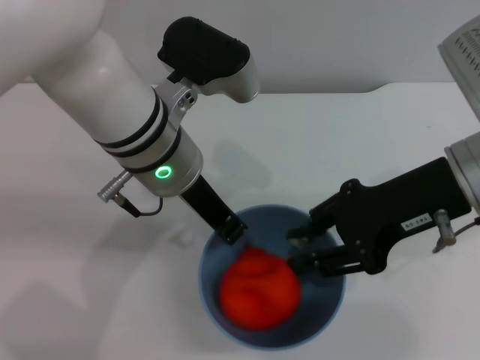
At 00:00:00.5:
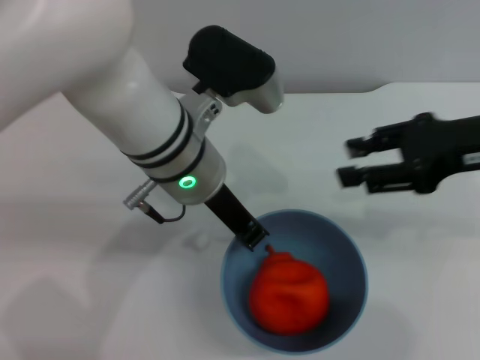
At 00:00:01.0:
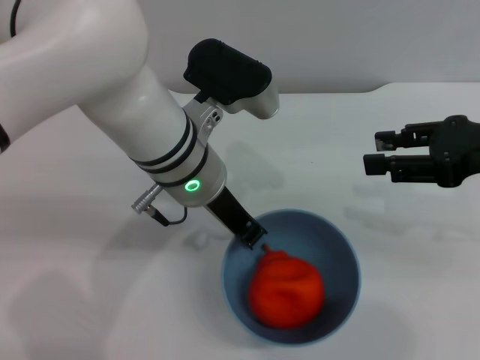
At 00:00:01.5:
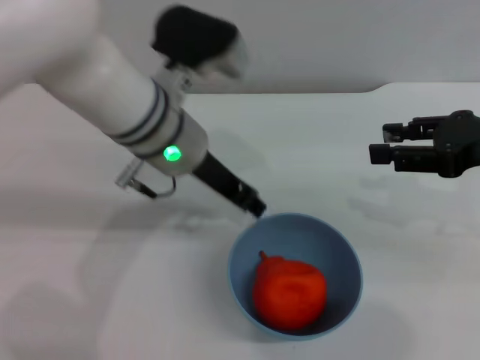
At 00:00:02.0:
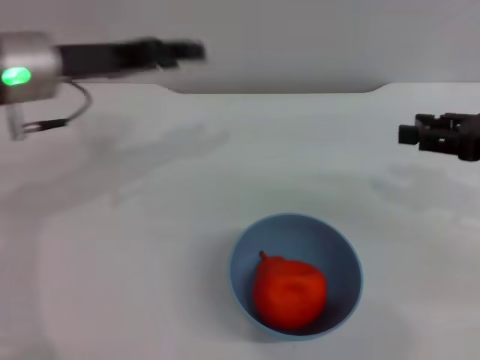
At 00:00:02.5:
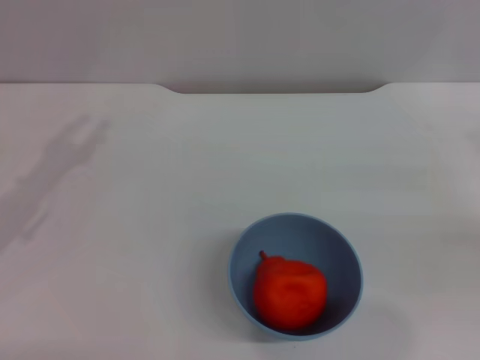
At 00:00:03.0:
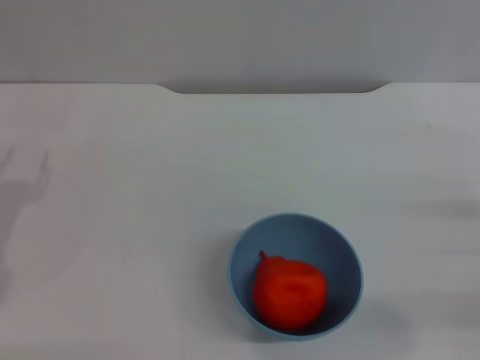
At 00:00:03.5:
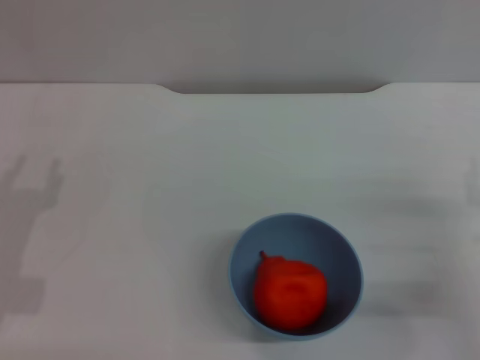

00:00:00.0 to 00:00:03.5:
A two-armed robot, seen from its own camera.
Task of the whole recording: put the orange into the blue bowl and pour it out repeatedly.
Step, 00:00:00.5 to 00:00:01.0: Place the bowl on the table.
00:00:00.0 to 00:00:02.0: The right gripper is displaced to the right by approximately 15 cm, and opens up; the left gripper moves to the left, approximately 15 cm, and opens its fingers.
00:00:02.0 to 00:00:03.5: The right gripper moves downward and backward, some 15 cm. Meanwhile the left gripper shifts some 20 cm downward, backward and to the left.
